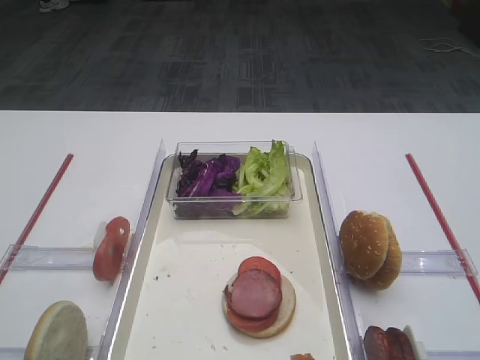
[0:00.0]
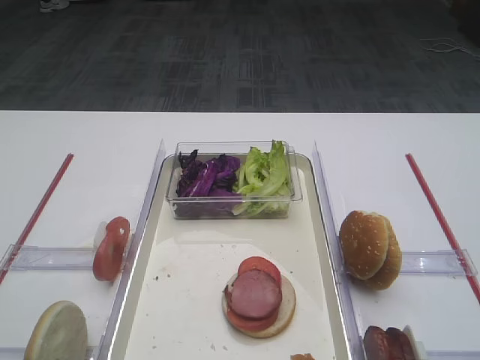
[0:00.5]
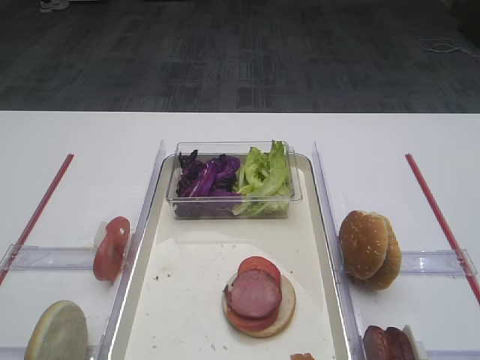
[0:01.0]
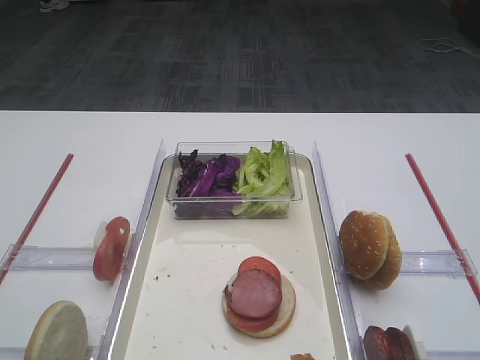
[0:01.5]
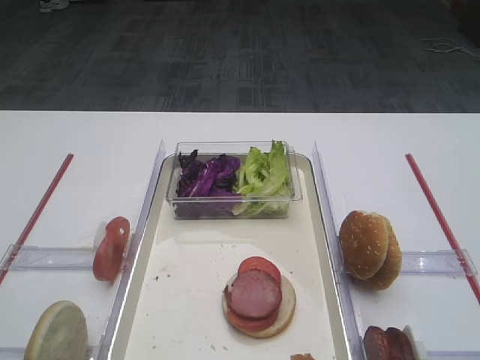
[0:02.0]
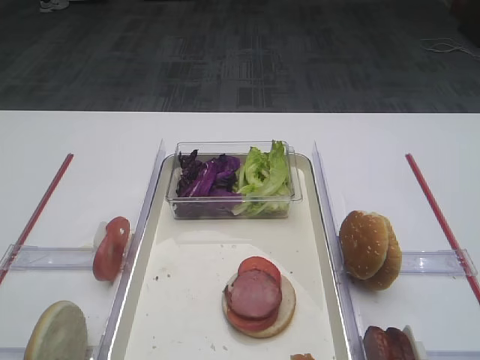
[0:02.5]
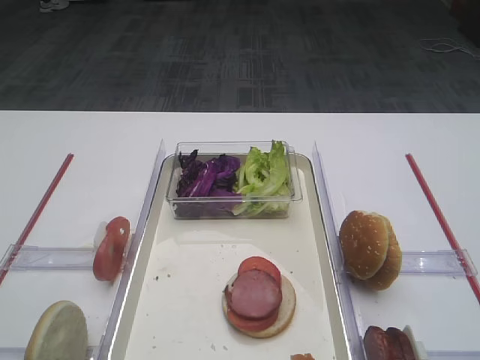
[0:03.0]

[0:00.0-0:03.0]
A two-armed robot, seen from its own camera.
0:00.0 to 0:01.5: The two grippers keep their place.
0:01.5 to 0:03.0: Neither gripper changes place.
